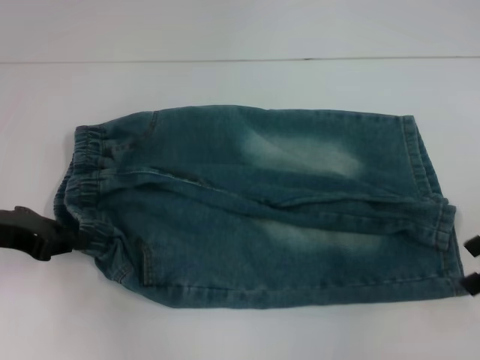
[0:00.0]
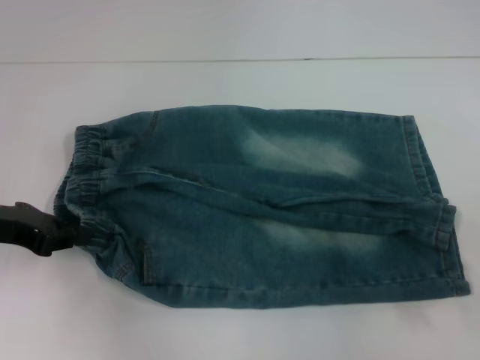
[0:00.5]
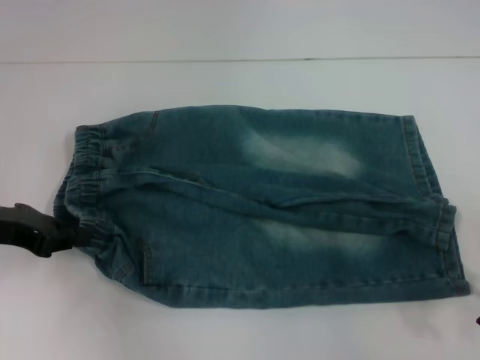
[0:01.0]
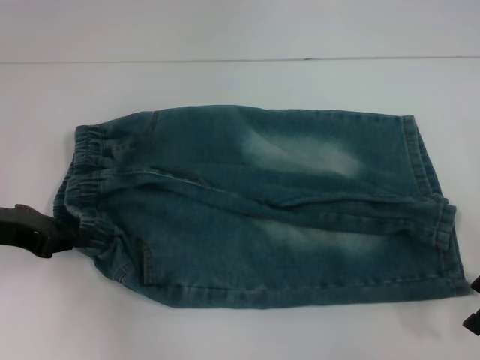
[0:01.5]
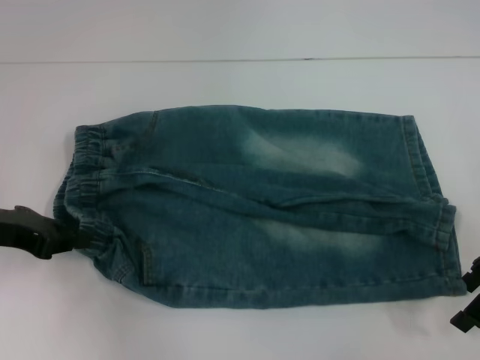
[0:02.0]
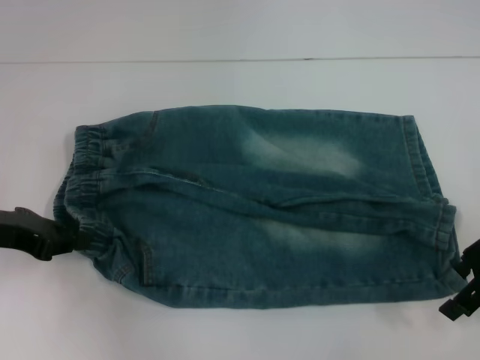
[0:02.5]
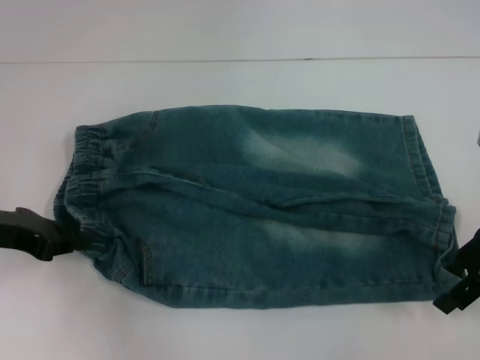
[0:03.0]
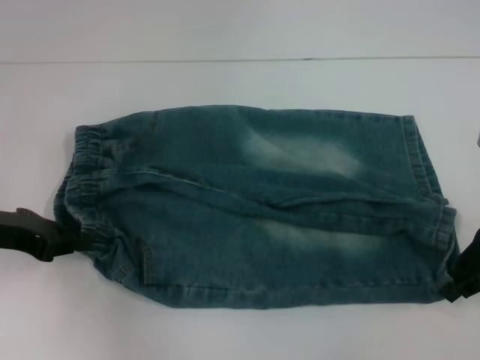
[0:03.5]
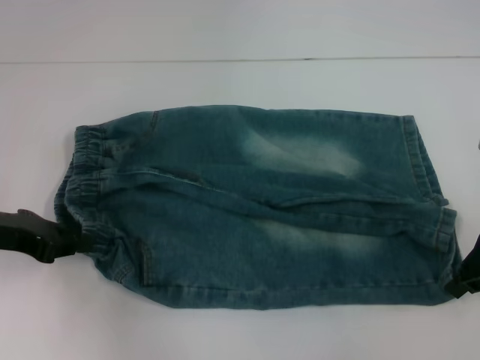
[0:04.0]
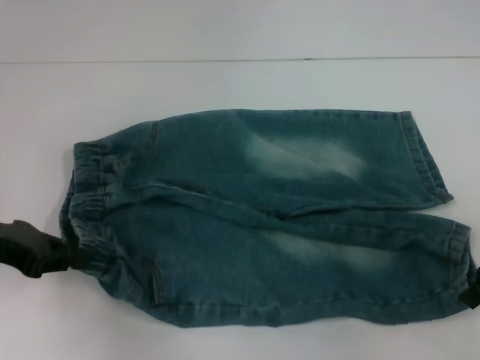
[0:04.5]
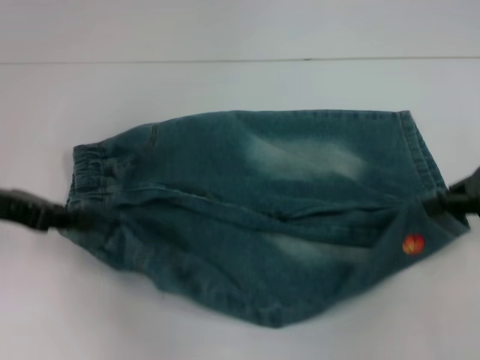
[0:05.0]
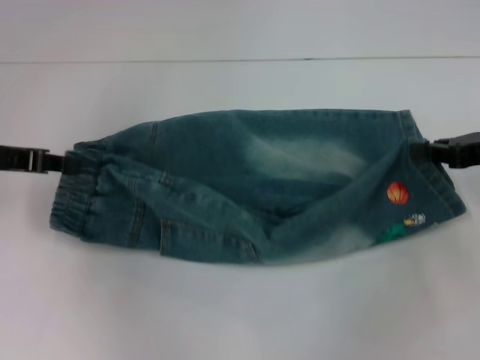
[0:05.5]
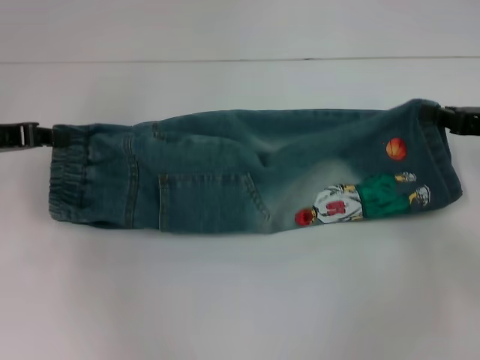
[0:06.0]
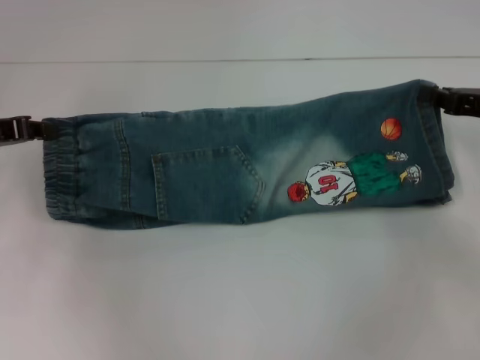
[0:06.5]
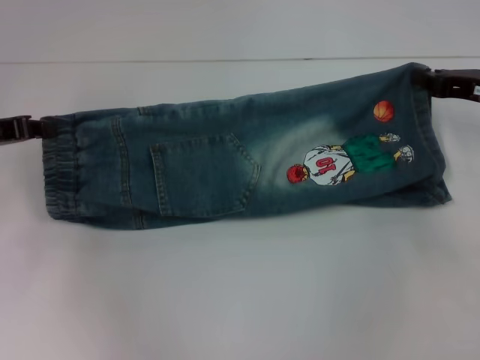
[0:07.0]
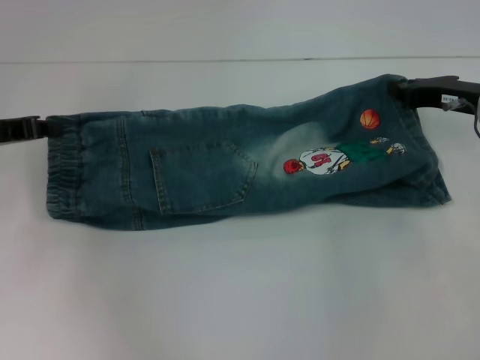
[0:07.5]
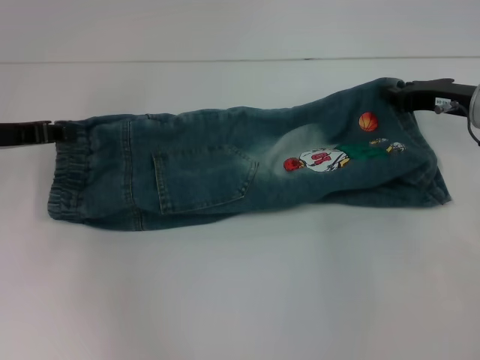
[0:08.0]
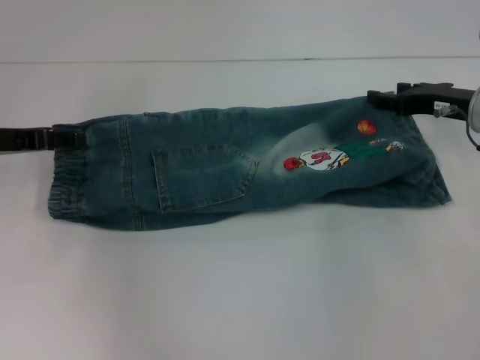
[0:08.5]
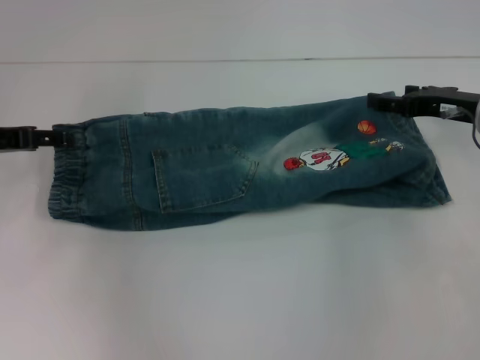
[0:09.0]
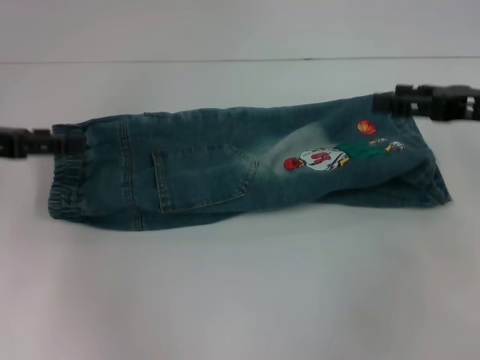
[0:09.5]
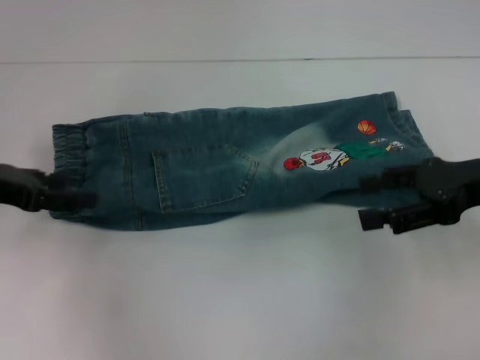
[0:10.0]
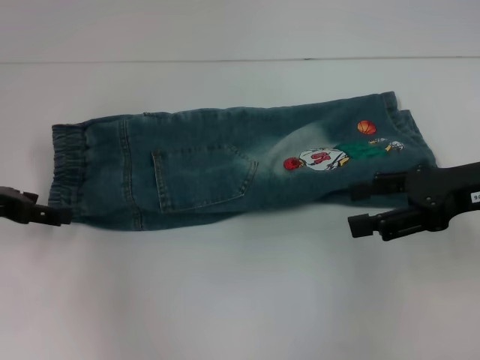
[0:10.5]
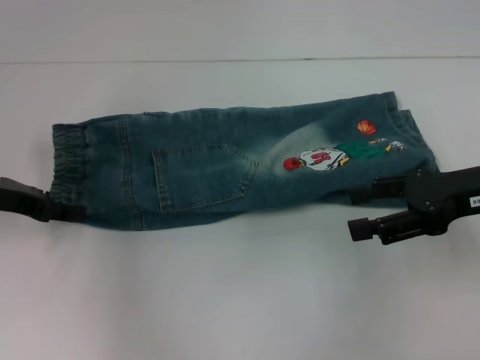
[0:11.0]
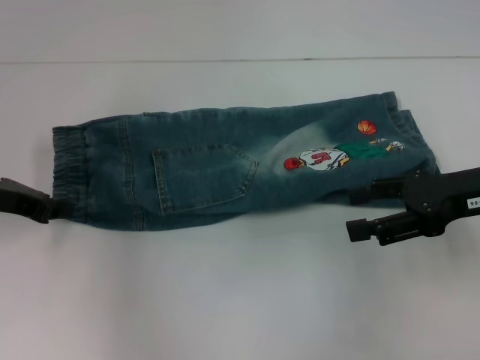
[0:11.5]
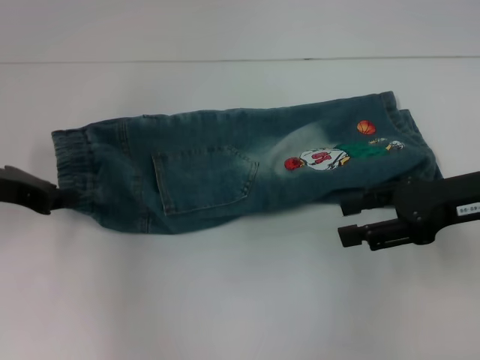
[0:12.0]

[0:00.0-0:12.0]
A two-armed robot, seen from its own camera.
Step, 0:00.0 to 0:03.5: Grab the lower right pant leg with your right hand.
Step, 0:04.0 to 0:09.0: Fold upward with your right hand.
Step, 0:09.5 to 0:11.5: Hold the waistband with your left hand.
0:00.0 to 0:02.0: The right gripper moves roughly 5 cm.
0:02.0 to 0:04.0: The right gripper closes its fingers.
0:04.0 to 0:06.0: The left gripper changes place by roughly 5 cm; the right gripper moves about 5 cm.
0:06.0 to 0:08.0: The right gripper goes about 10 cm to the left and forward.
0:08.0 to 0:10.0: The left gripper ends up some 5 cm from where it was, and opens its fingers, while the right gripper goes roughly 10 cm backward, and opens up.
0:10.0 to 0:12.0: The left gripper closes up.

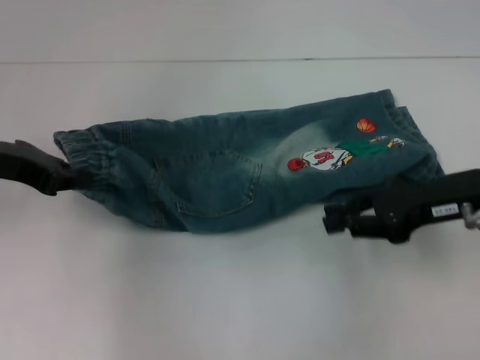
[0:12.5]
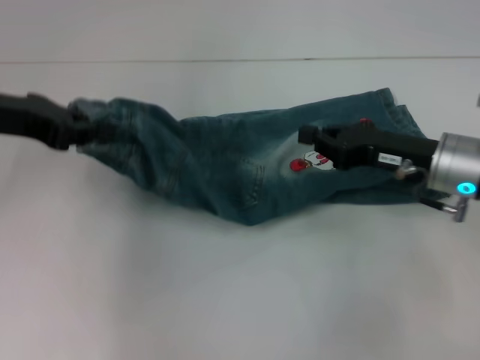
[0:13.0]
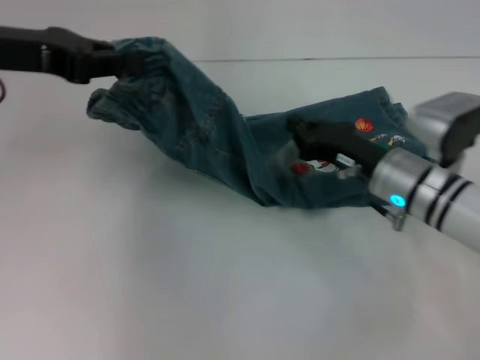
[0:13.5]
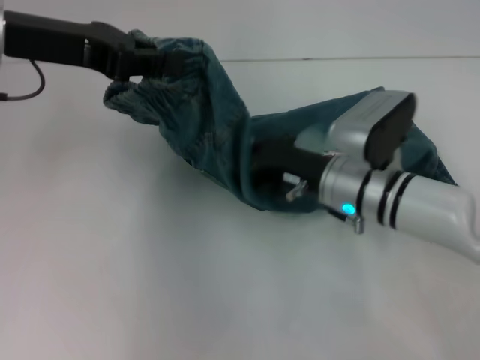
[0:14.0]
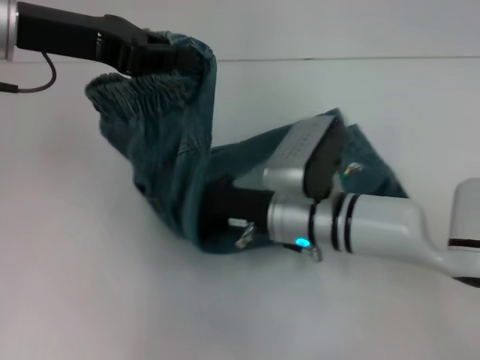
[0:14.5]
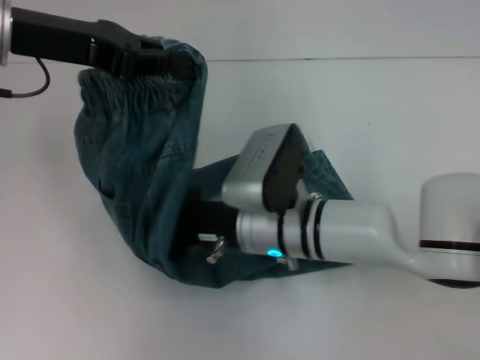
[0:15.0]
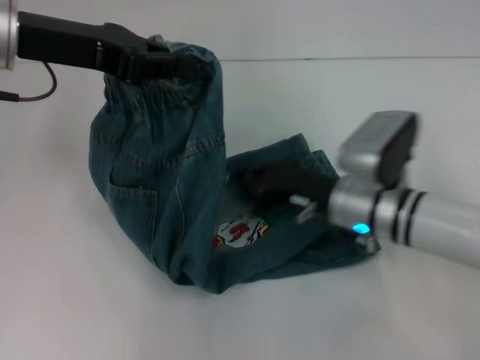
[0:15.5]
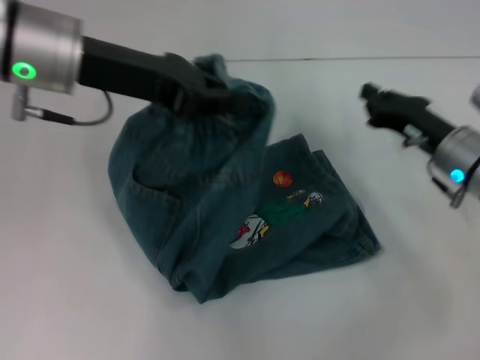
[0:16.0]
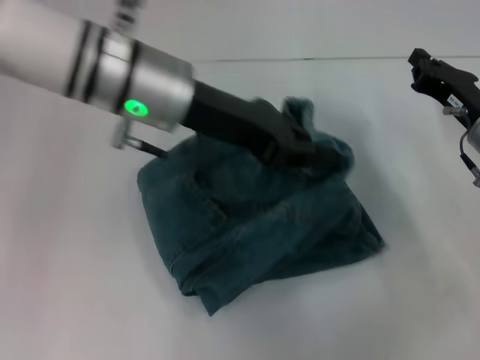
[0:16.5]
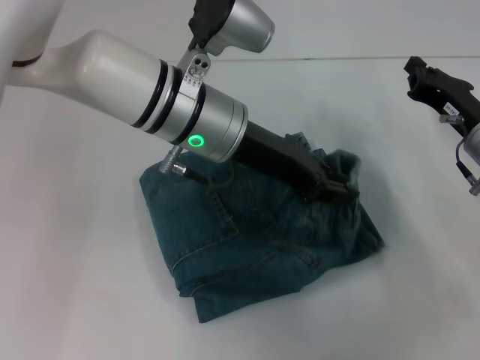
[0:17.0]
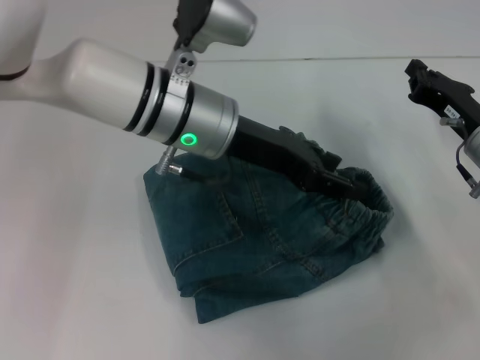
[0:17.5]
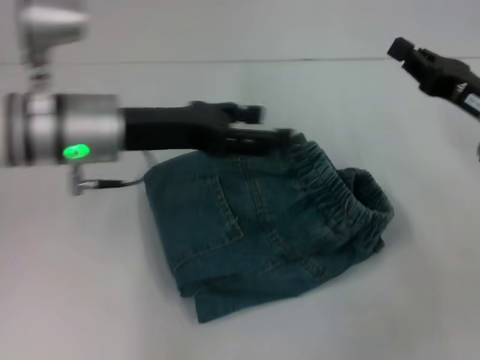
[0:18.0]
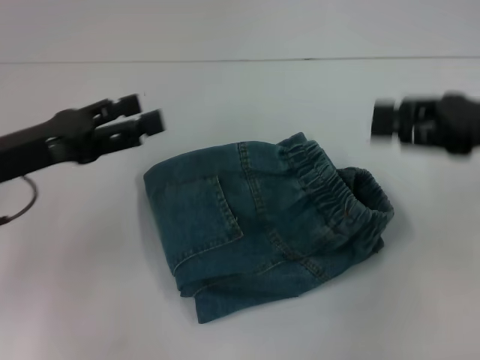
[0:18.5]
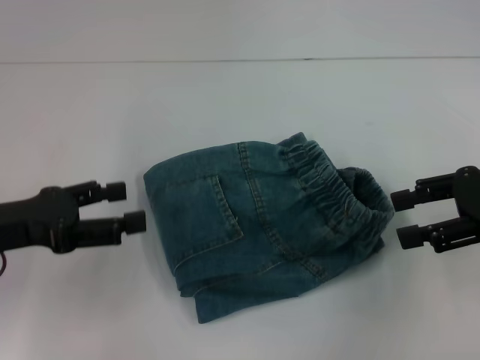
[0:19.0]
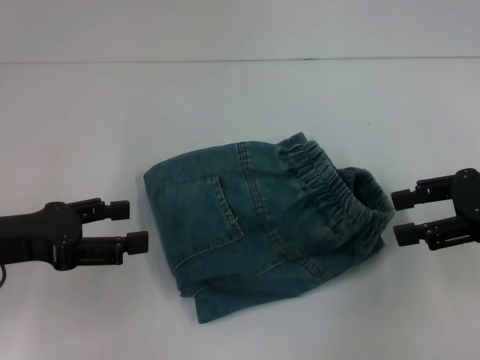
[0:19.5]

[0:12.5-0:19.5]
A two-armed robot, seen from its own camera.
Step, 0:12.5 to 0:15.0: Press the middle of the pants with your right hand.
Step, 0:15.5 to 0:17.5: Fold to the right with your left hand.
0:12.5 to 0:14.5: The right gripper travels to the left and downward by roughly 20 cm, and closes; the left gripper moves upward and to the right, approximately 10 cm.
0:14.5 to 0:16.0: The right gripper travels to the right by about 15 cm, while the left gripper shifts by about 5 cm.
0:16.0 to 0:17.5: The left gripper is displaced to the right and downward by some 15 cm, and opens.
0:17.5 to 0:19.5: The left gripper heads to the left and backward, covering approximately 25 cm, and opens up. The right gripper goes about 10 cm upward and backward, and opens its fingers.

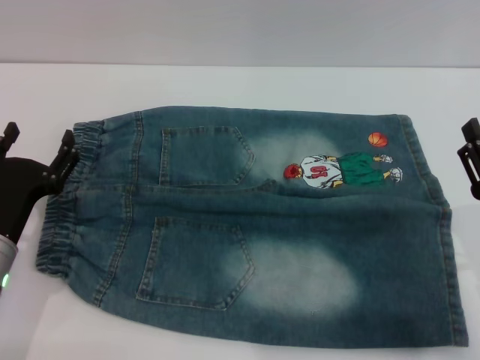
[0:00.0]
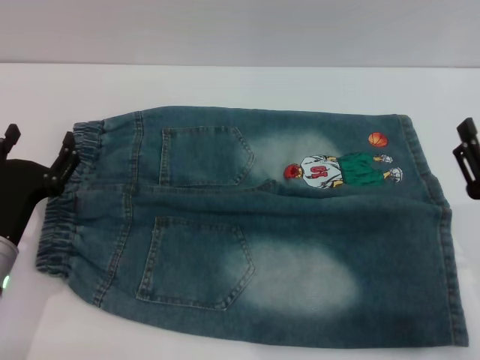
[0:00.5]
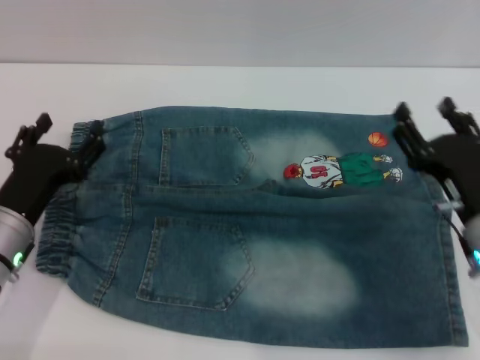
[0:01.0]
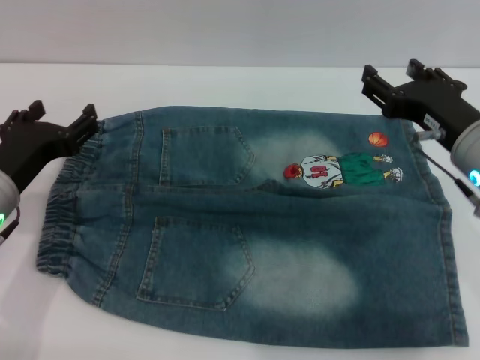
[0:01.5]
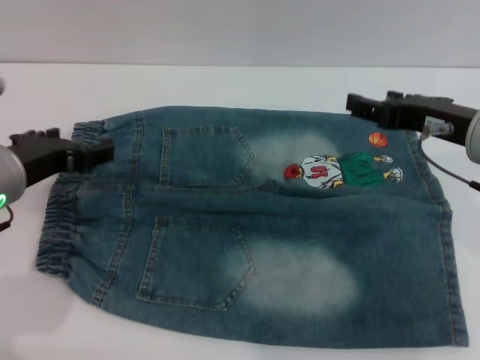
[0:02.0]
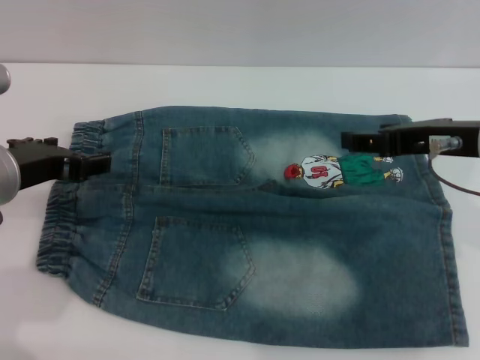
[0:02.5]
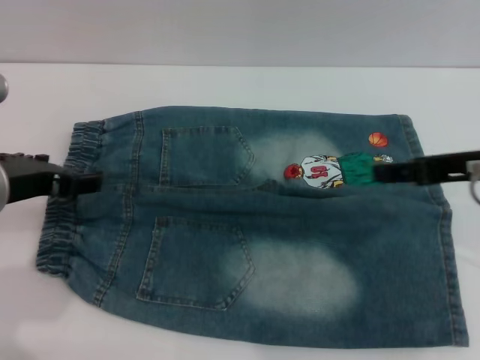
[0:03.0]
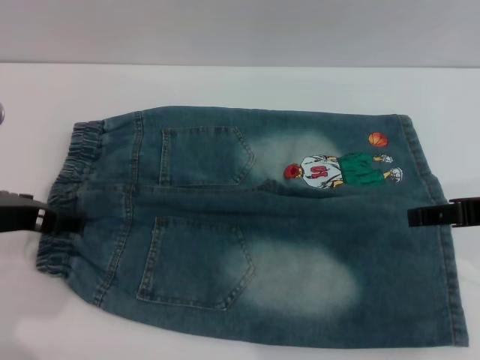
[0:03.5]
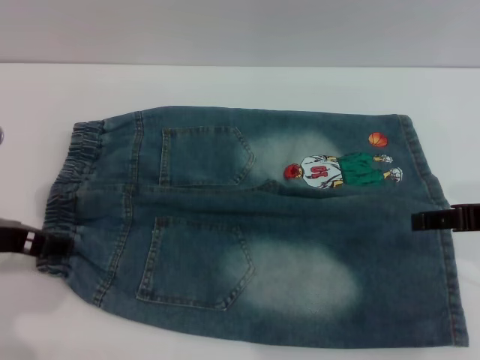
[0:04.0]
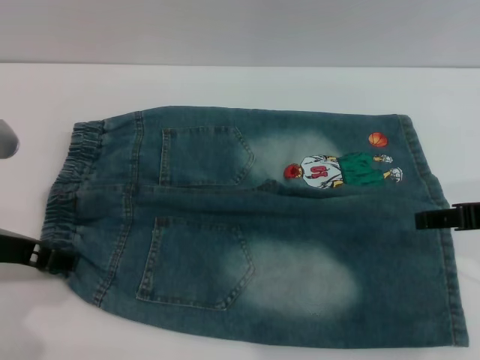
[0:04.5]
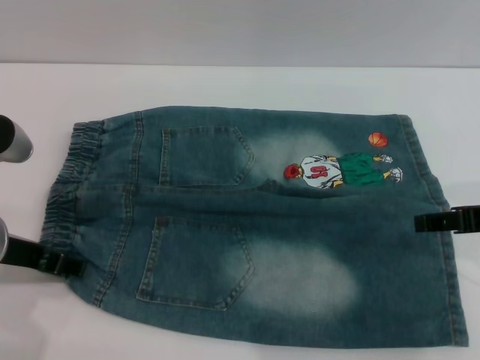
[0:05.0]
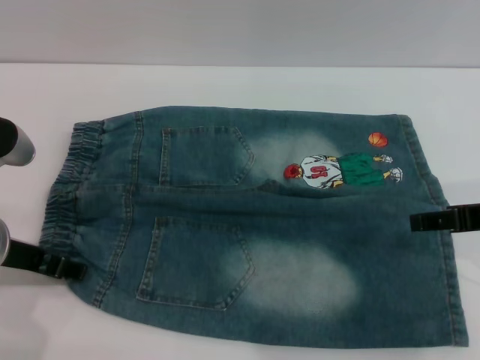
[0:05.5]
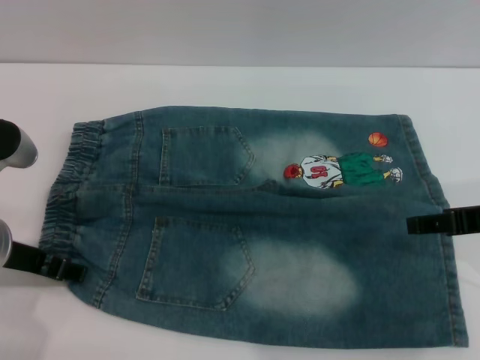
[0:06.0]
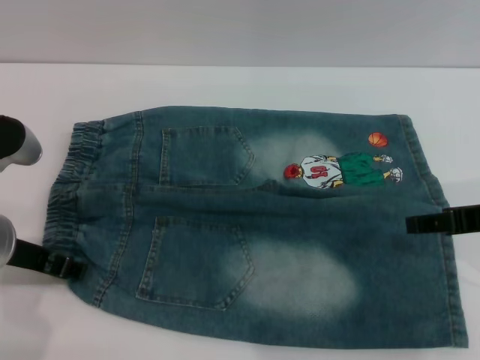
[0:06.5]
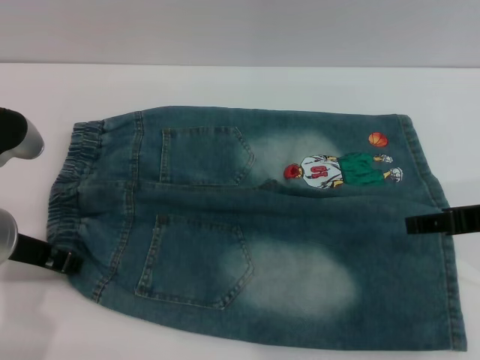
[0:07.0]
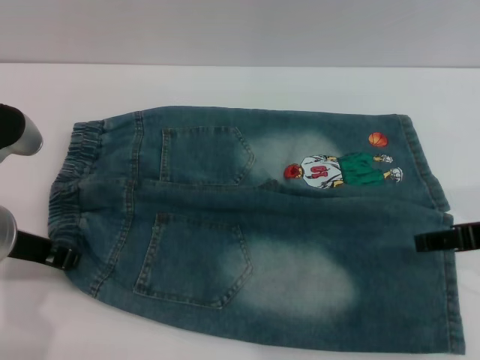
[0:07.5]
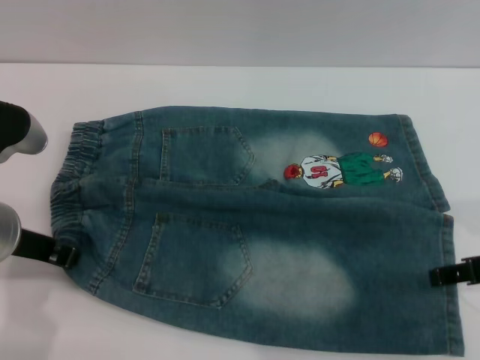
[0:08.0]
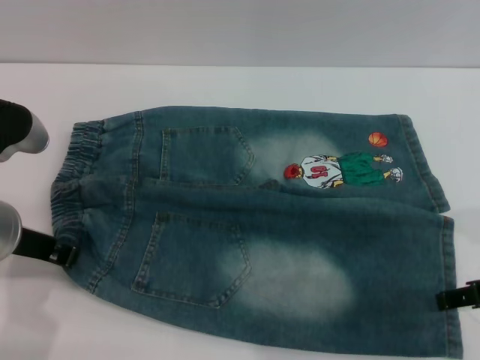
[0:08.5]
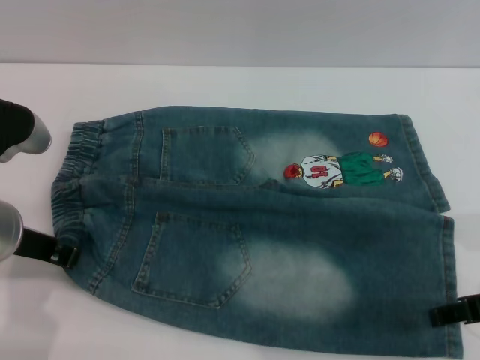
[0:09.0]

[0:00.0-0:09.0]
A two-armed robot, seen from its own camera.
0:00.0 to 0:02.0: The right gripper heads upward and forward, covering roughly 15 cm, while the left gripper travels upward by about 15 cm.
0:02.0 to 0:04.5: The right gripper shifts by approximately 5 cm.
0:04.5 to 0:07.0: The grippers stay close to where they were, moving slightly.
0:07.0 to 0:09.0: The left gripper closes its fingers; the right gripper shifts by about 5 cm.
